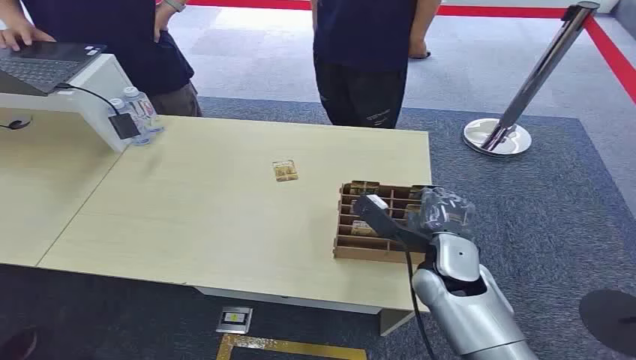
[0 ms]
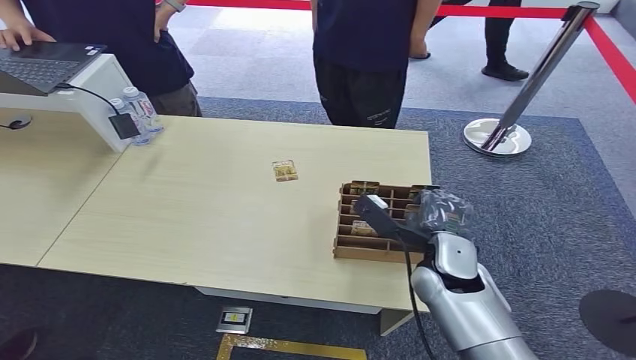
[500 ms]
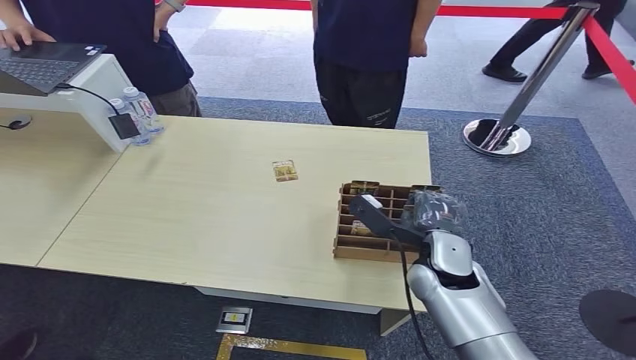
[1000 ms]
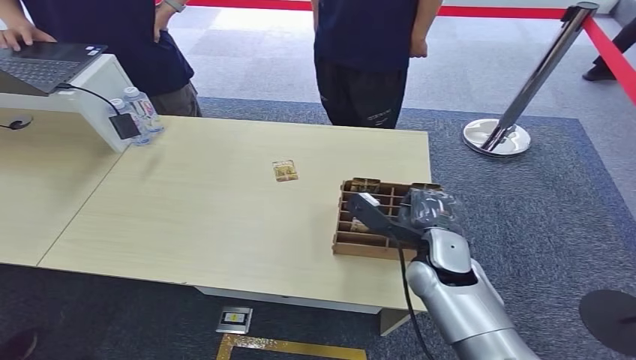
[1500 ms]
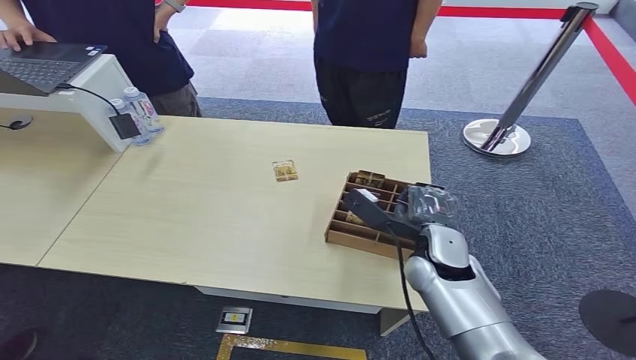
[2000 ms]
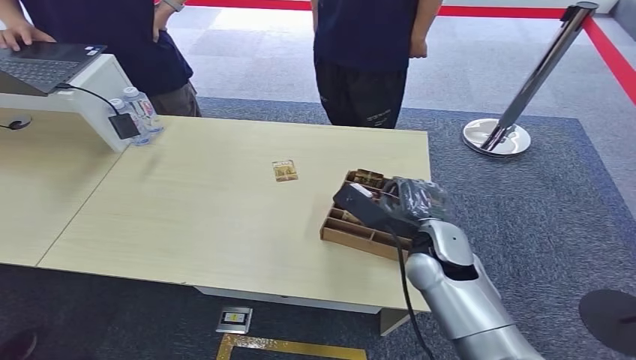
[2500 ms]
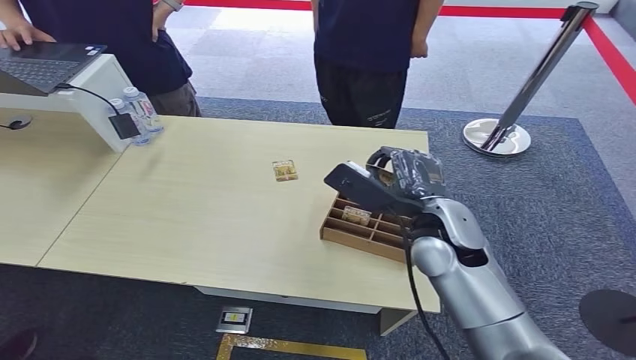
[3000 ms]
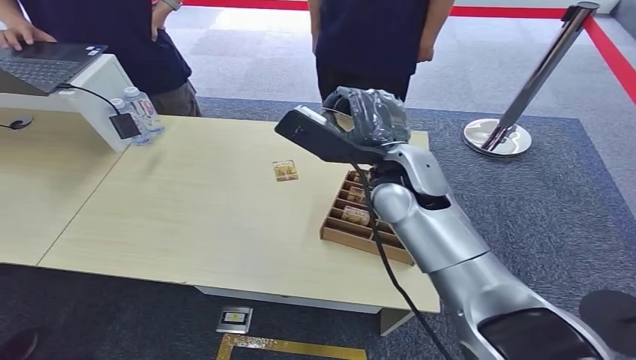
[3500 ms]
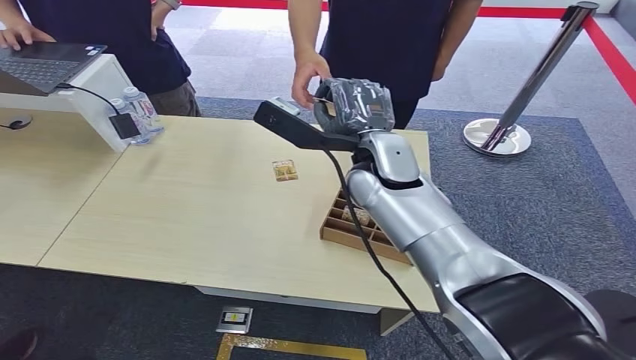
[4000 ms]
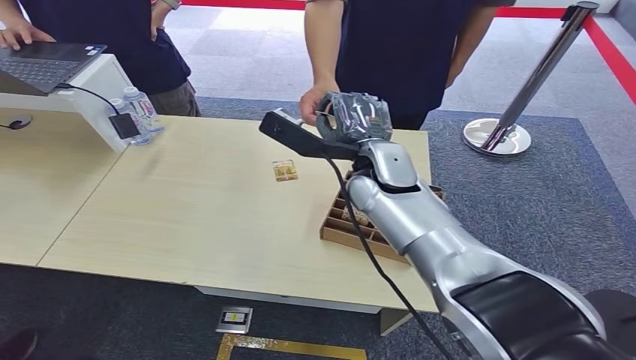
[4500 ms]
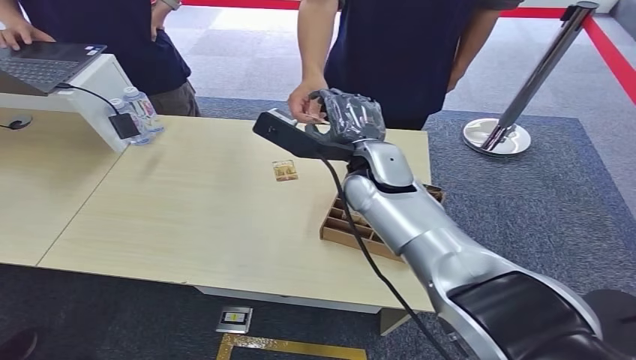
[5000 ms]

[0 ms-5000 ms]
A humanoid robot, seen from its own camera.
Step, 0 ms to 2500 ms: Pick up the key card from the card box.
Step, 3000 ms to 5000 ms: Hand the key card to the target.
2500 ms to 5000 ms: The right hand moves upward, to the left and forward, about 15 cm.
